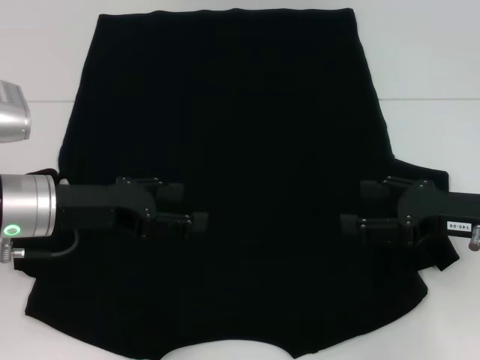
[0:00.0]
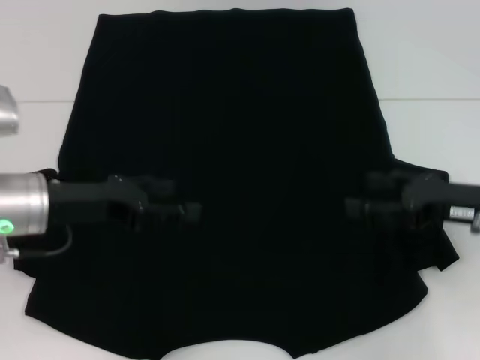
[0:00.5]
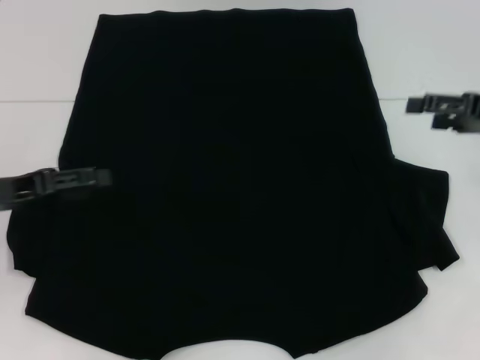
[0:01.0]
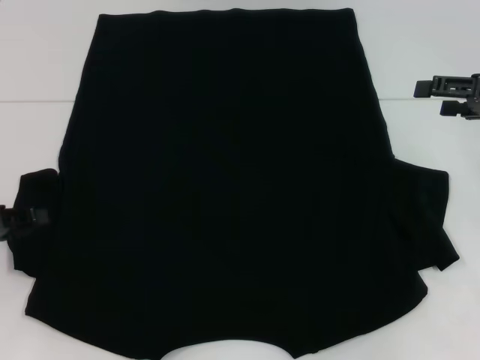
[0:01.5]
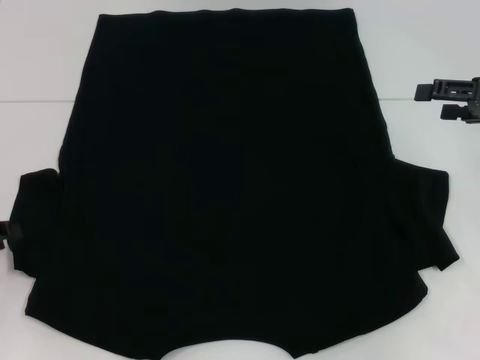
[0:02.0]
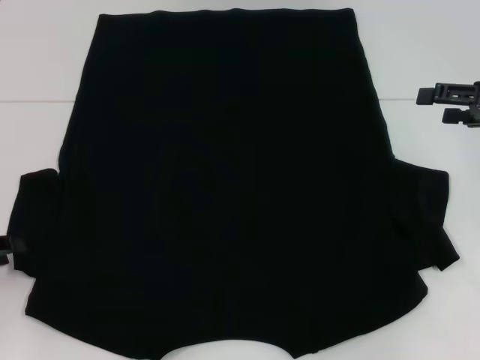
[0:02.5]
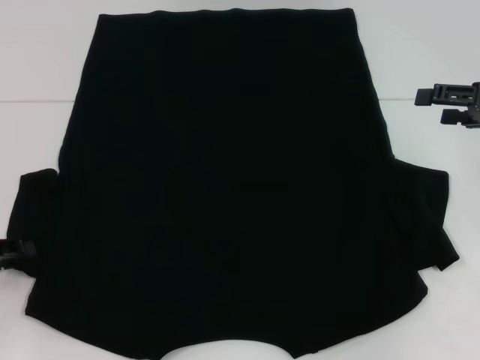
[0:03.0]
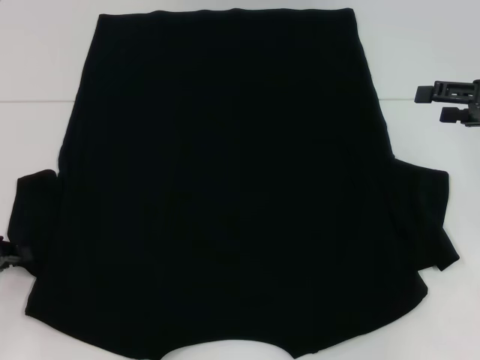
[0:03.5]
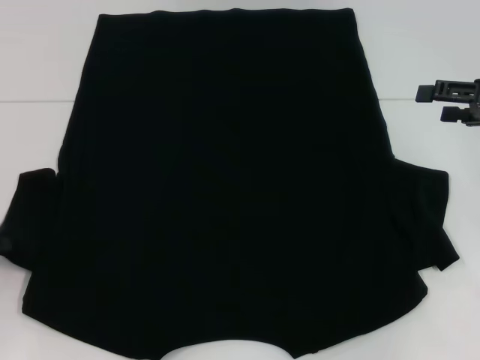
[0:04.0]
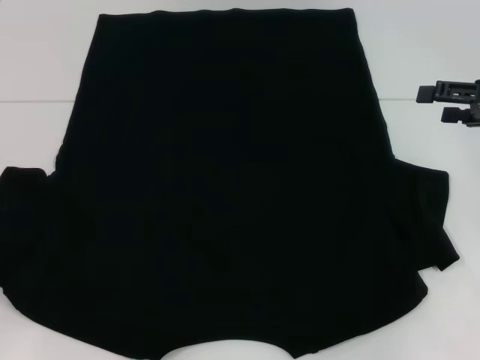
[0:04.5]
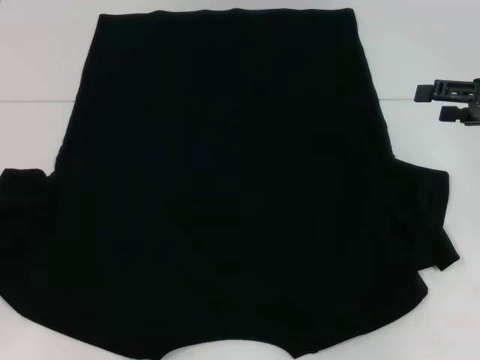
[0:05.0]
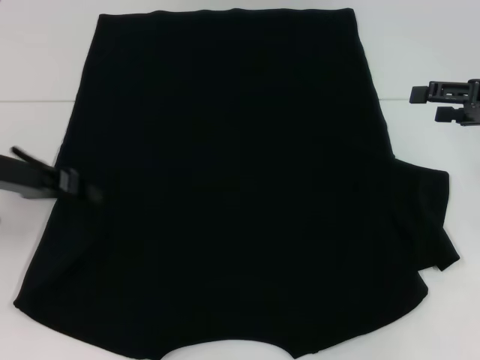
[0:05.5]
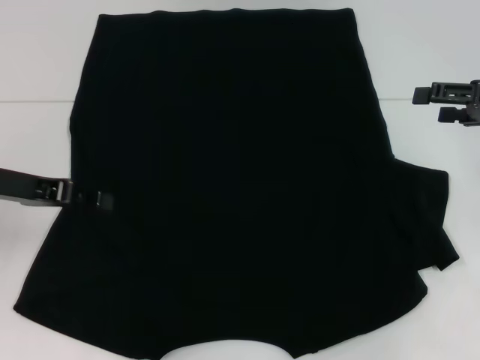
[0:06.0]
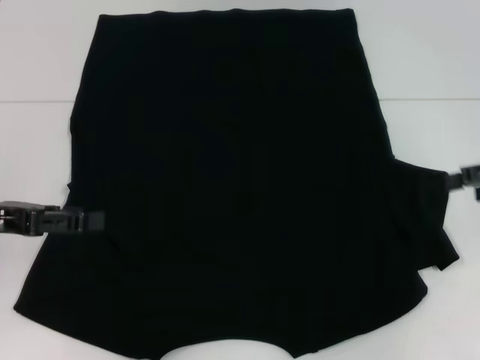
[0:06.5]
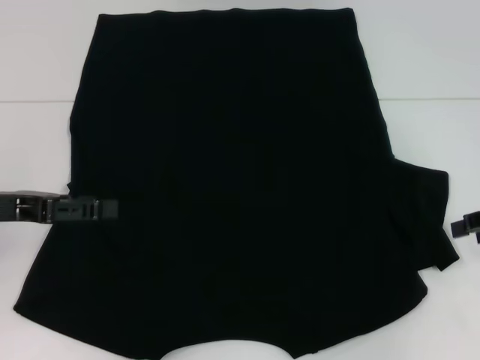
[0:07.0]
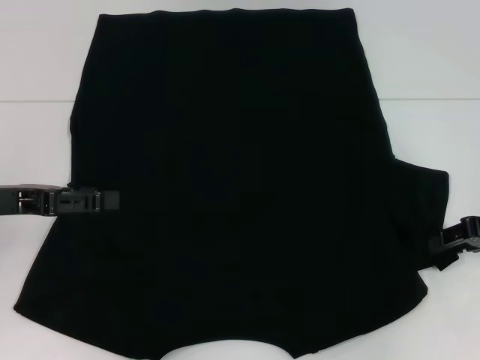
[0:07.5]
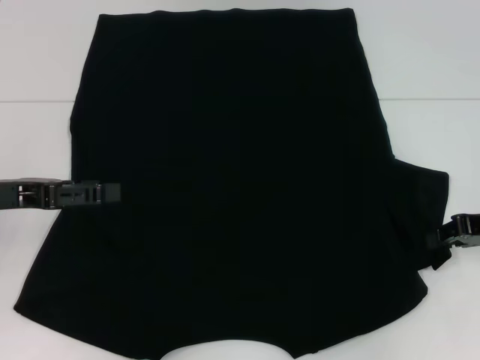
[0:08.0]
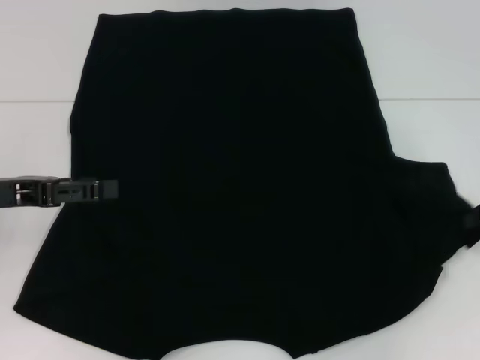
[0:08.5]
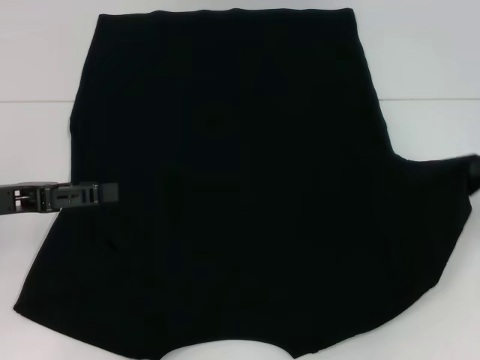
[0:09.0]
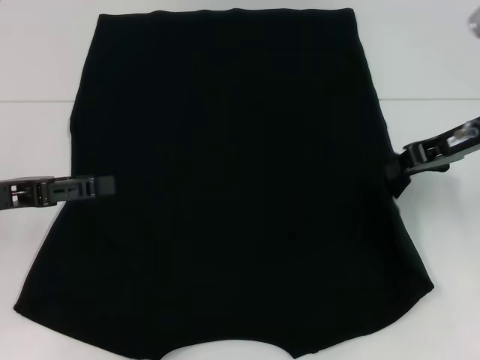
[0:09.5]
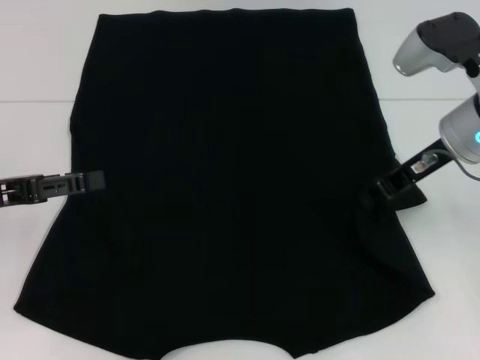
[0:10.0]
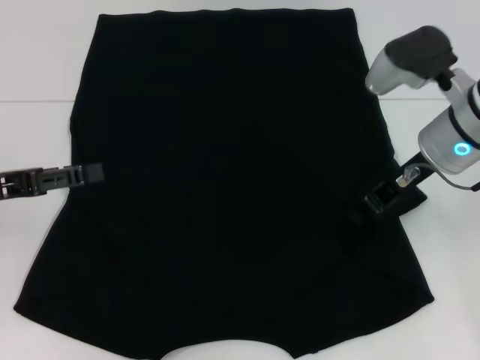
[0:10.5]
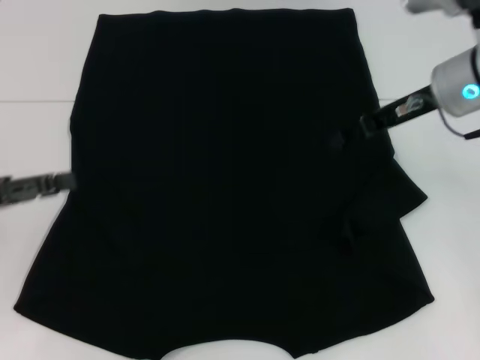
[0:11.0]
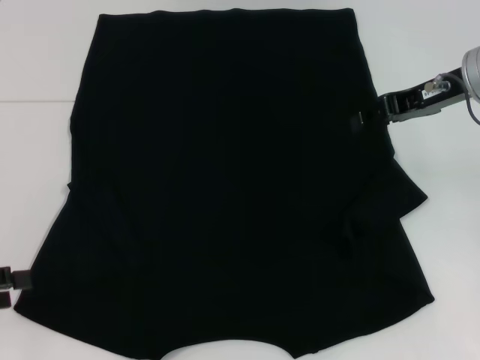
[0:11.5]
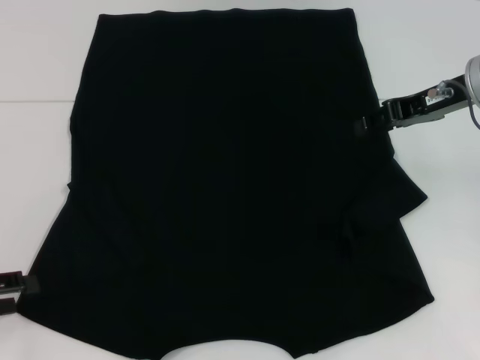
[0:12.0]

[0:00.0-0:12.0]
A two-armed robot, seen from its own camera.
Step, 0.0 to 6.0 s: Fold the bottom left sleeve with your left hand.
Step, 6.5 to 10.5 s: Fold the bottom right sleeve with your right hand.
0.0 to 2.0 s: The right gripper travels upward, forward and to the right by about 10 cm; the left gripper heads to the left, covering roughly 15 cm, and closes.
2.0 to 4.0 s: The left gripper closes up.
4.0 to 6.0 s: The left gripper shifts some 15 cm to the right, upward and forward.
6.0 to 8.0 s: The left gripper opens its fingers; the right gripper travels downward by about 5 cm, and closes its fingers.
8.0 to 10.0 s: The right gripper heads to the left, upward and forward, covering some 15 cm.
10.0 to 12.0 s: The right gripper opens up; the left gripper shifts some 10 cm backward, downward and to the left.

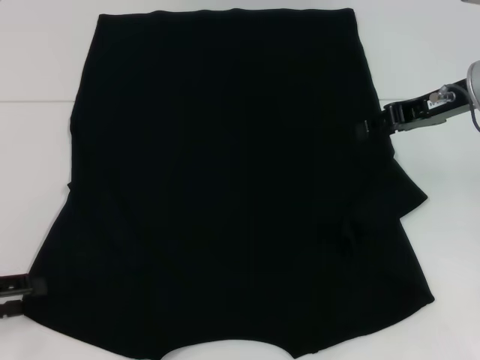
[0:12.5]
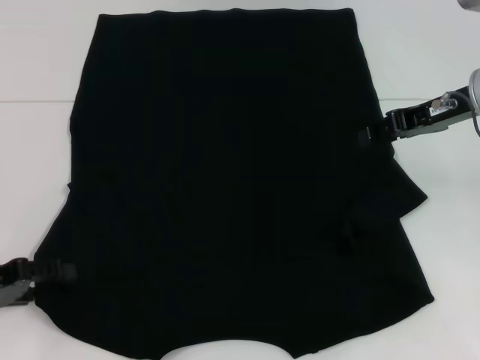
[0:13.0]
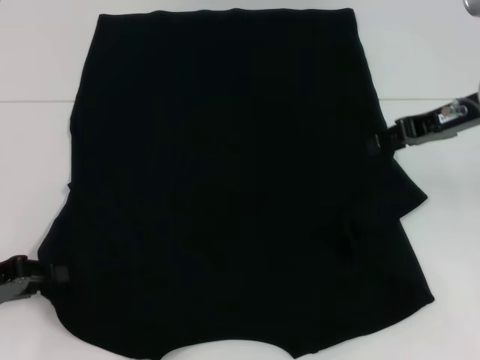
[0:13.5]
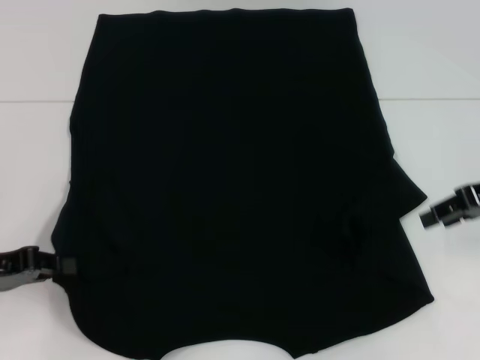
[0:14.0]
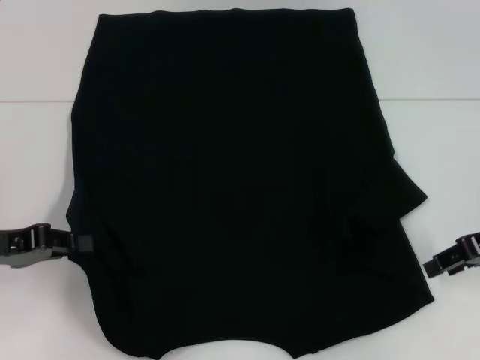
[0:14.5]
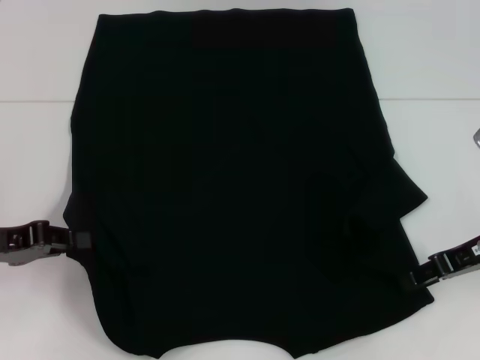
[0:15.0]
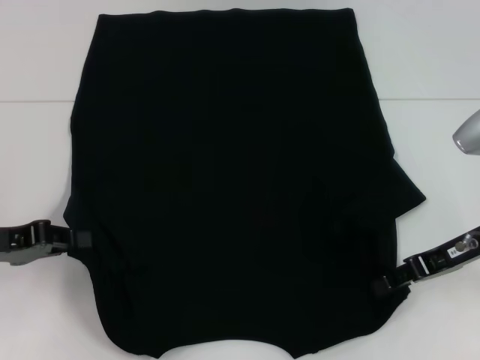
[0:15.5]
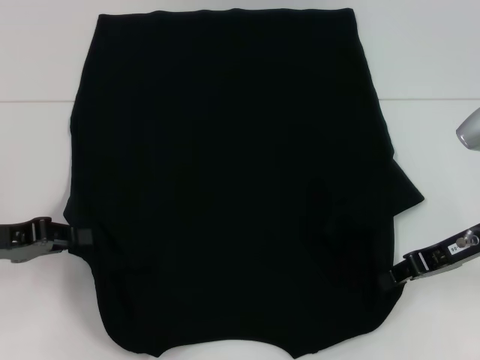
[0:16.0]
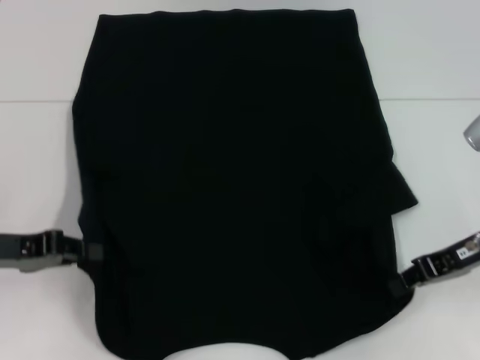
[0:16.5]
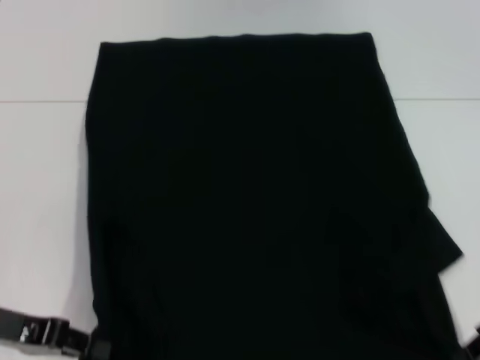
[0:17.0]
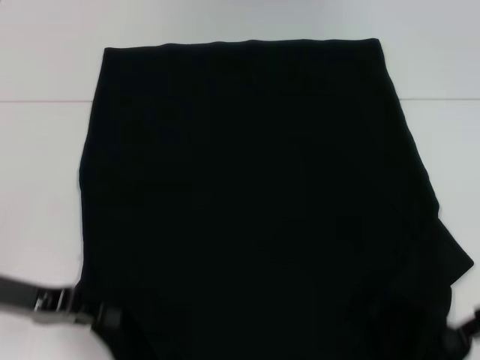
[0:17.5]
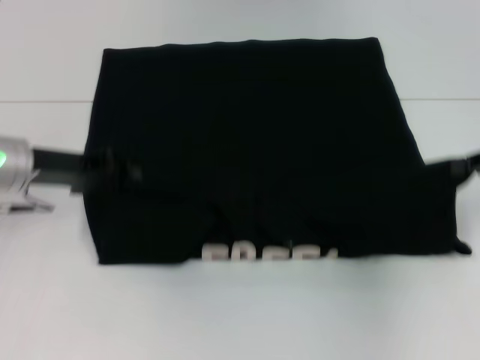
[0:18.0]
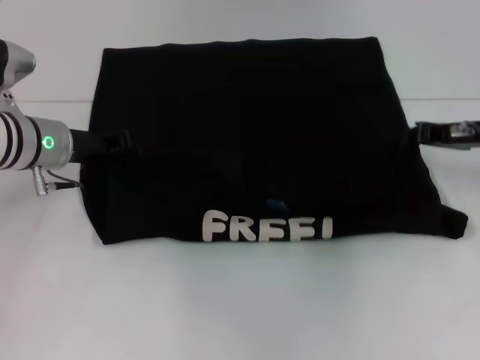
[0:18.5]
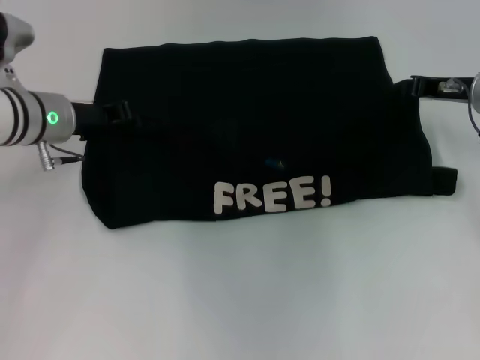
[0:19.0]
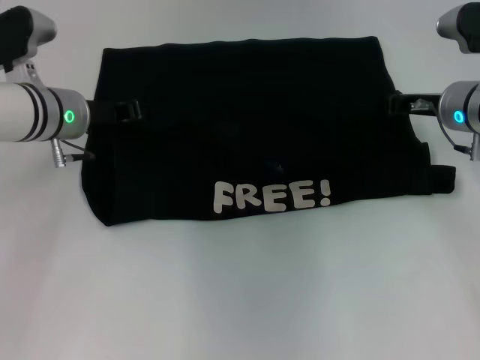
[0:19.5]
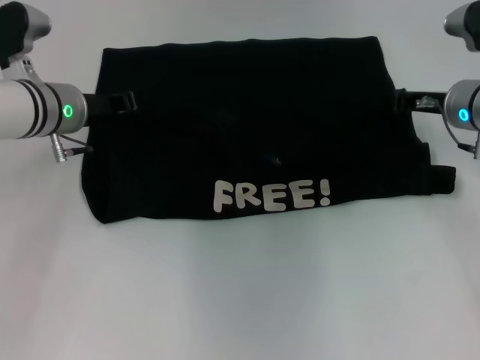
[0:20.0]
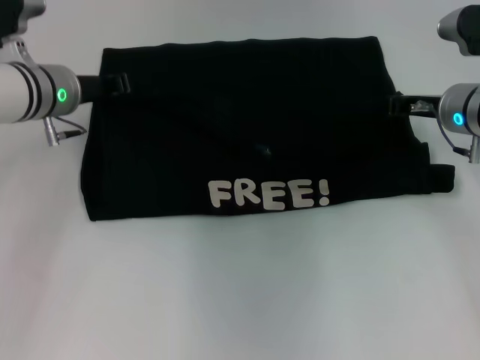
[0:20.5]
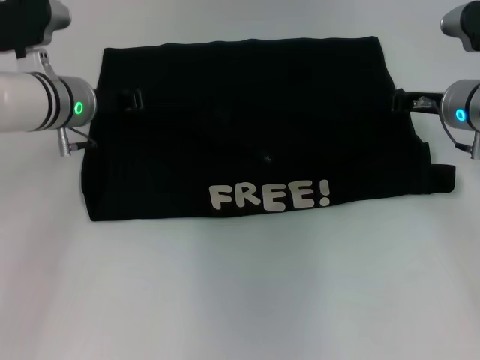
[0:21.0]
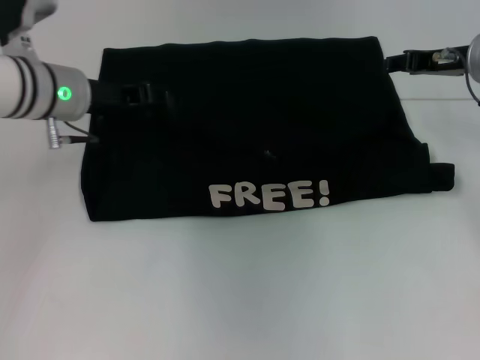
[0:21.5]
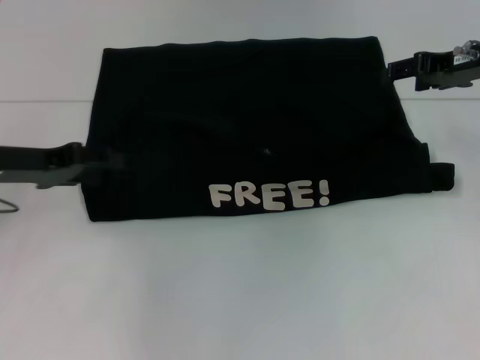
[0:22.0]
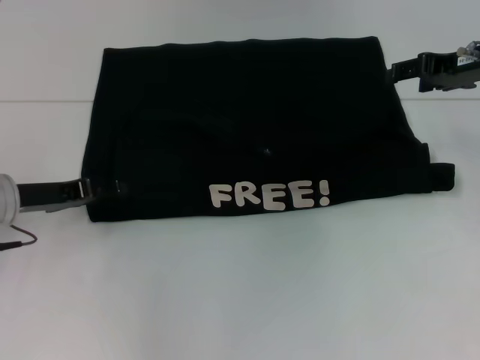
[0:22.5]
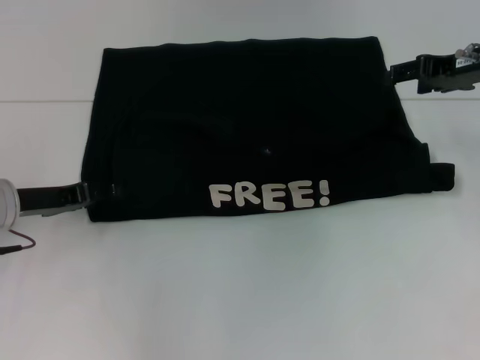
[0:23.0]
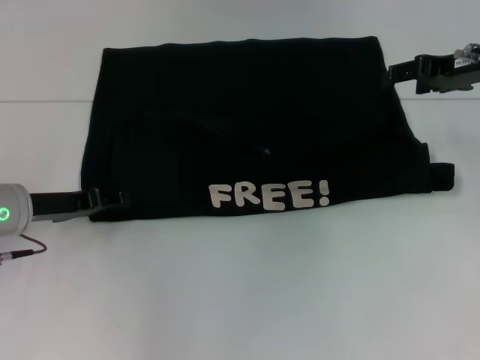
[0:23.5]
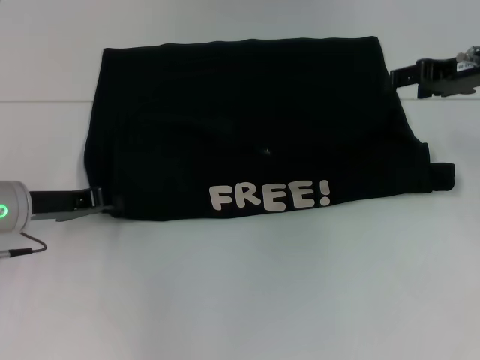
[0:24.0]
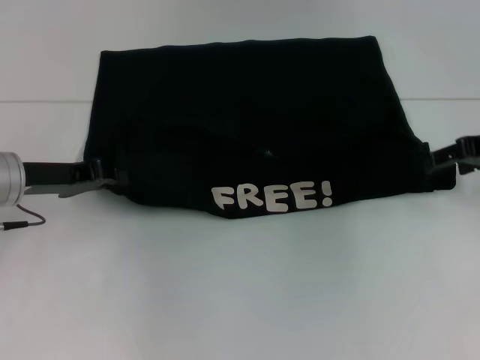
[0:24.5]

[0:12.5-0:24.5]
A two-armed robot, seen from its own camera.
Step, 12.5 to 16.0 s: Grab the bottom left corner with your left hand.
Step, 12.5 to 16.0 s: Grab the bottom right corner with your right hand.
Step, 16.5 to 19.5 s: Fold the clothes with your left hand.
Step, 16.5 to 19.5 s: Fold the clothes with your right hand.
12.5 to 14.5 s: The right gripper travels backward, to the right and downward by about 10 cm; the left gripper moves approximately 5 cm, and closes its fingers.
14.5 to 16.5 s: The right gripper closes.
16.5 to 18.5 s: The right gripper heads forward, covering approximately 10 cm. The left gripper moves forward and to the right, about 15 cm.
18.5 to 20.5 s: The left gripper ends up approximately 5 cm from where it was. Meanwhile the right gripper shifts by some 5 cm.
20.5 to 22.5 s: The left gripper moves backward, to the left and downward, roughly 15 cm, and opens. The right gripper shifts approximately 10 cm upward, and opens up.
22.5 to 24.5 s: The left gripper closes its fingers; the right gripper moves some 5 cm.

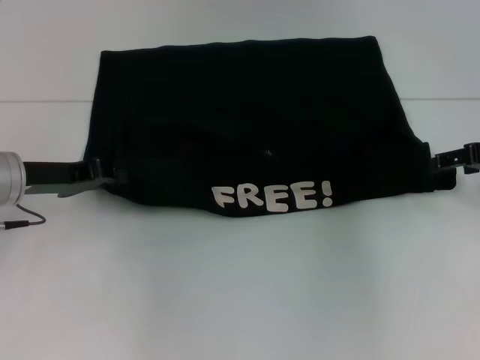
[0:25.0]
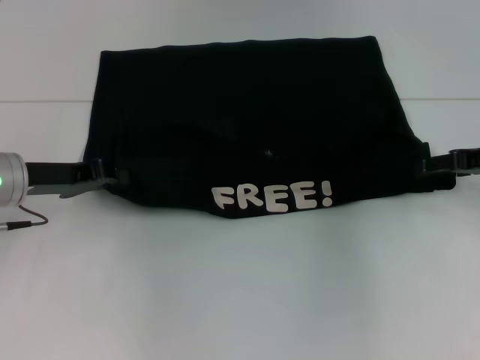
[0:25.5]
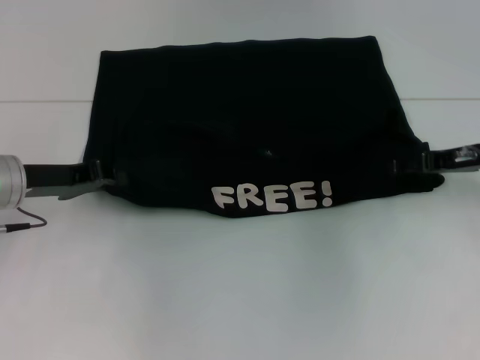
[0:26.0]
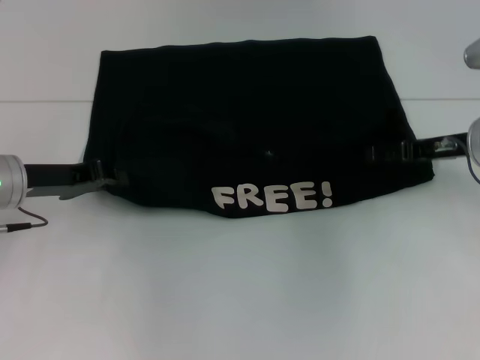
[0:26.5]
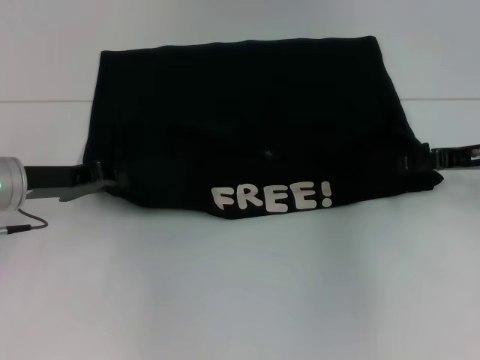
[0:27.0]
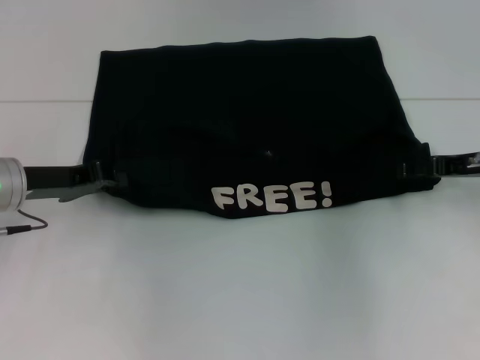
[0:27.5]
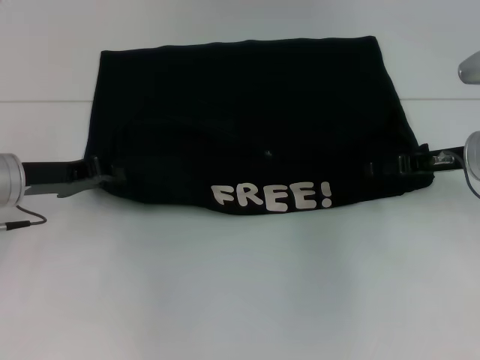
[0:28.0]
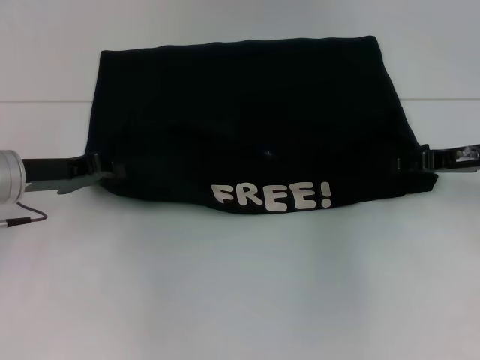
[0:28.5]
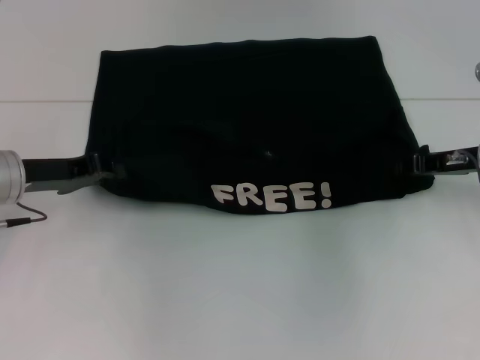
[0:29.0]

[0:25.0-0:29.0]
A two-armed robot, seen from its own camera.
27.0 to 29.0 s: The right gripper closes its fingers.
